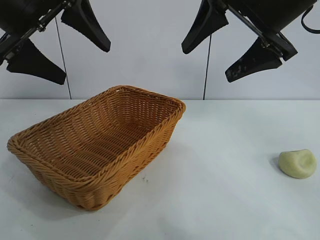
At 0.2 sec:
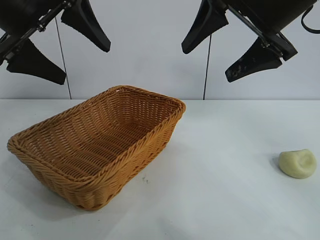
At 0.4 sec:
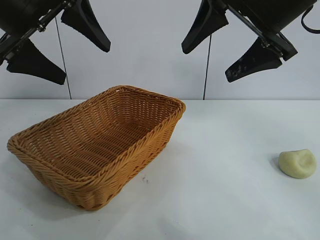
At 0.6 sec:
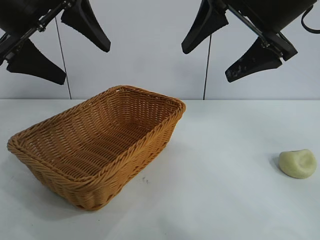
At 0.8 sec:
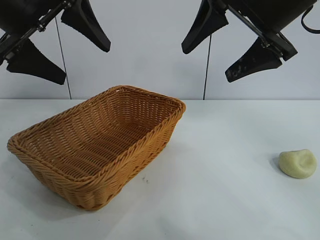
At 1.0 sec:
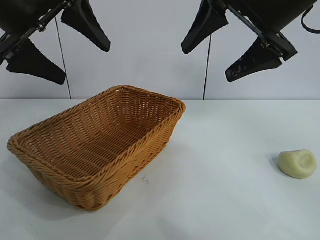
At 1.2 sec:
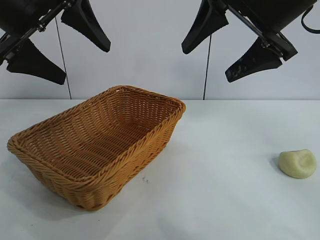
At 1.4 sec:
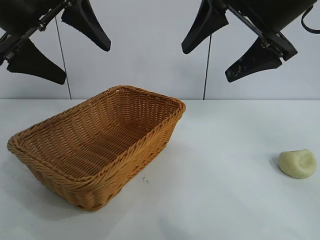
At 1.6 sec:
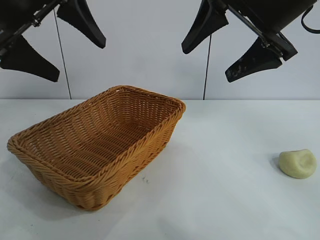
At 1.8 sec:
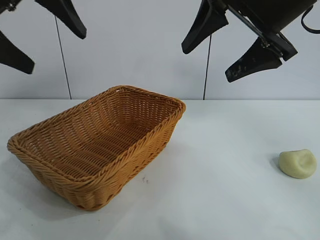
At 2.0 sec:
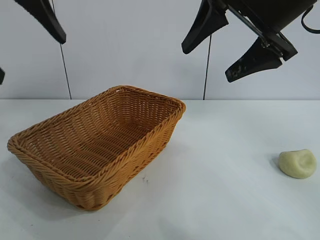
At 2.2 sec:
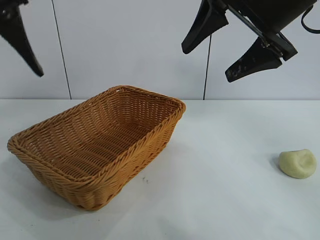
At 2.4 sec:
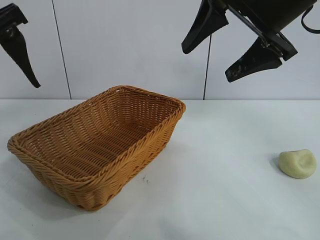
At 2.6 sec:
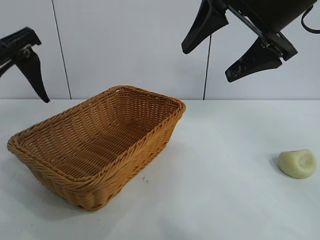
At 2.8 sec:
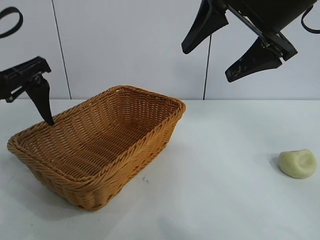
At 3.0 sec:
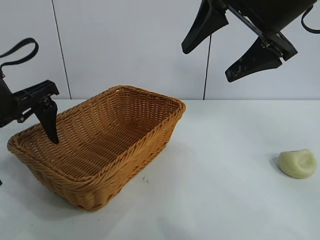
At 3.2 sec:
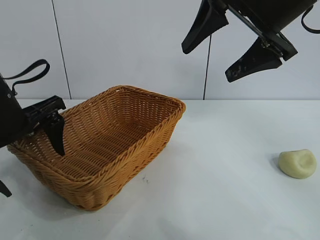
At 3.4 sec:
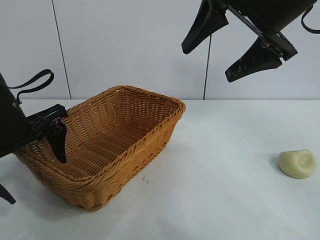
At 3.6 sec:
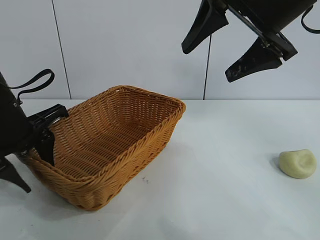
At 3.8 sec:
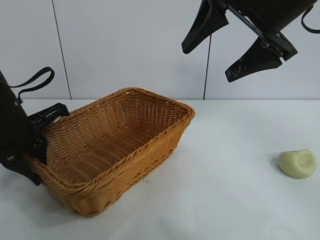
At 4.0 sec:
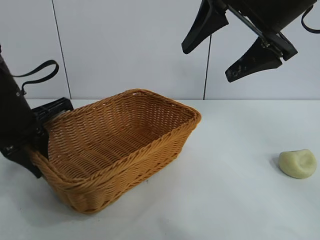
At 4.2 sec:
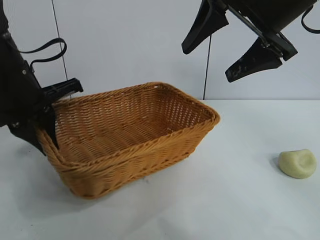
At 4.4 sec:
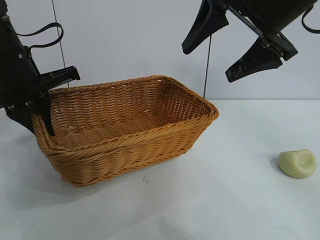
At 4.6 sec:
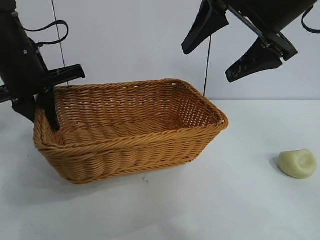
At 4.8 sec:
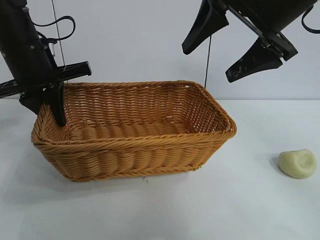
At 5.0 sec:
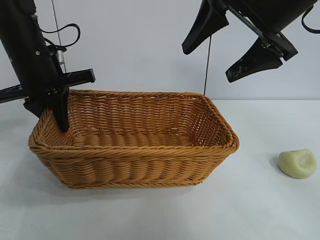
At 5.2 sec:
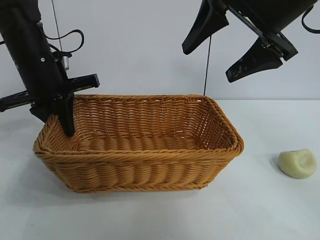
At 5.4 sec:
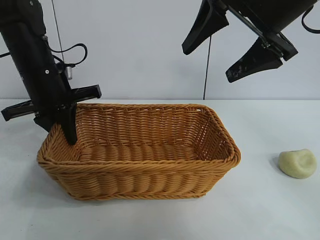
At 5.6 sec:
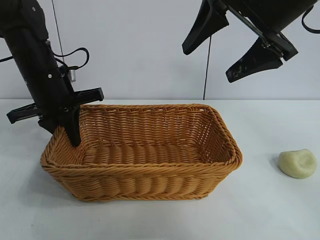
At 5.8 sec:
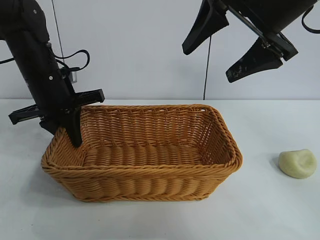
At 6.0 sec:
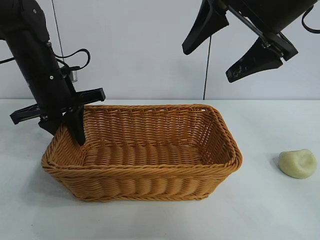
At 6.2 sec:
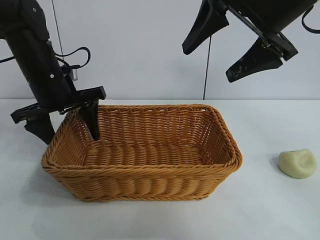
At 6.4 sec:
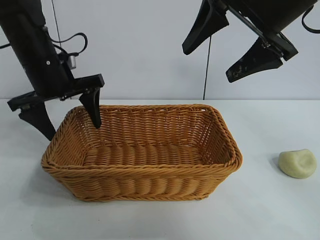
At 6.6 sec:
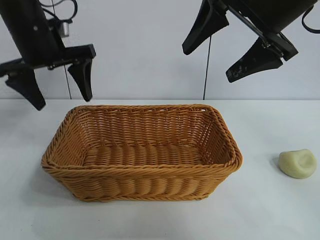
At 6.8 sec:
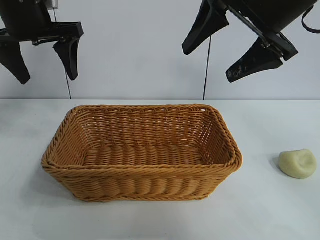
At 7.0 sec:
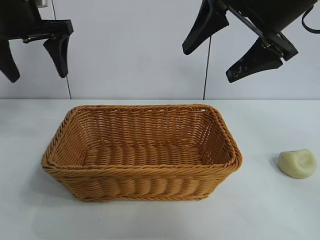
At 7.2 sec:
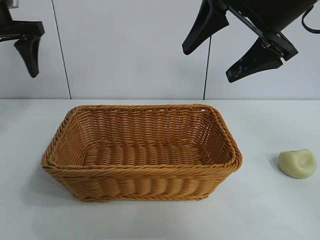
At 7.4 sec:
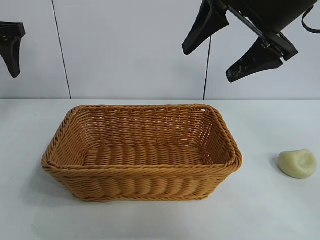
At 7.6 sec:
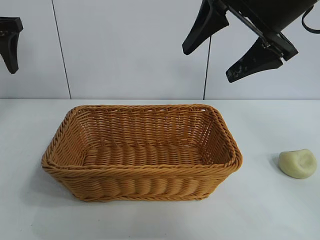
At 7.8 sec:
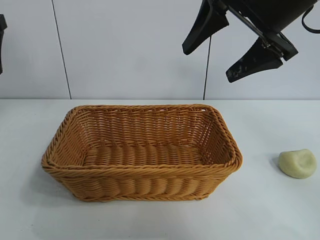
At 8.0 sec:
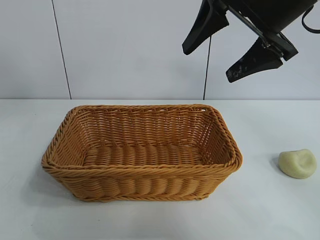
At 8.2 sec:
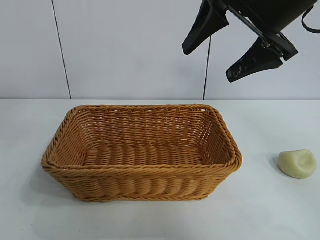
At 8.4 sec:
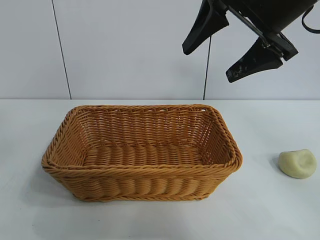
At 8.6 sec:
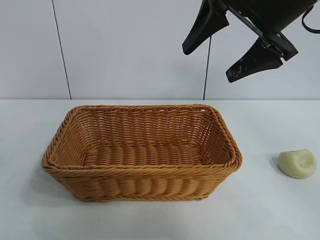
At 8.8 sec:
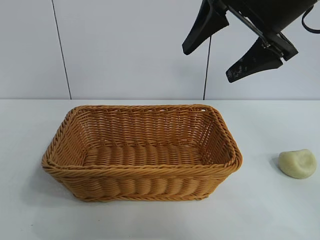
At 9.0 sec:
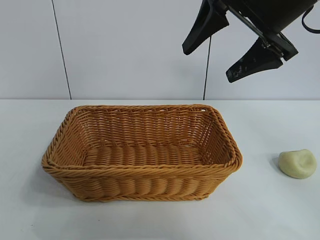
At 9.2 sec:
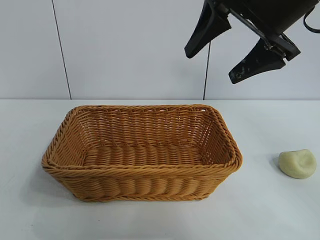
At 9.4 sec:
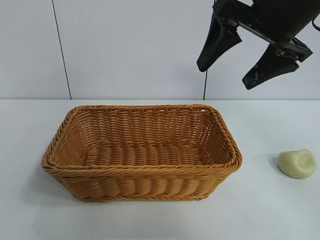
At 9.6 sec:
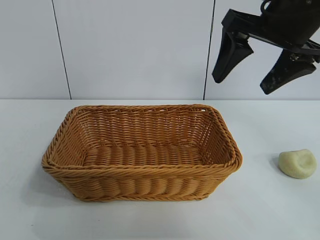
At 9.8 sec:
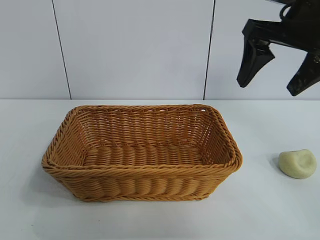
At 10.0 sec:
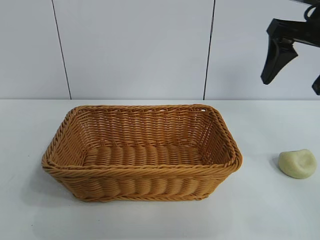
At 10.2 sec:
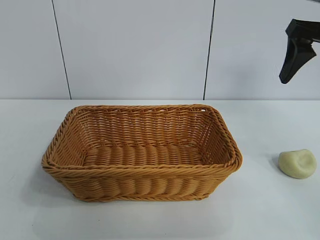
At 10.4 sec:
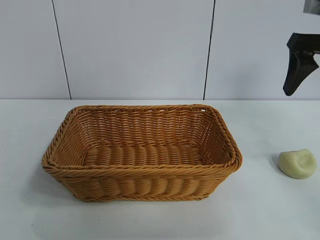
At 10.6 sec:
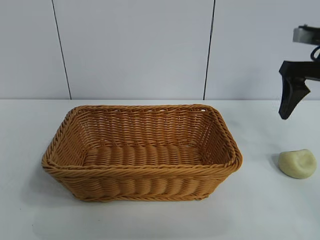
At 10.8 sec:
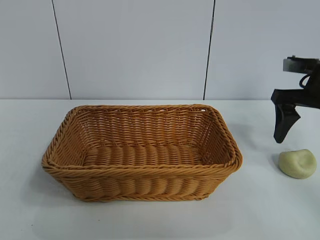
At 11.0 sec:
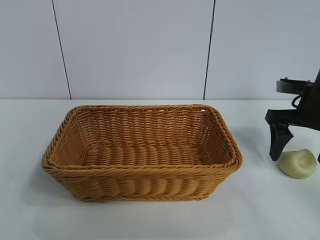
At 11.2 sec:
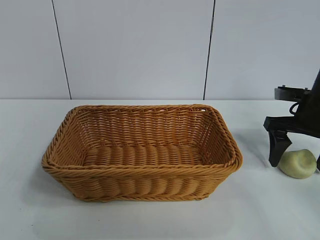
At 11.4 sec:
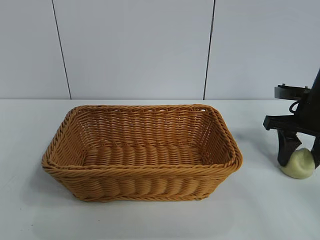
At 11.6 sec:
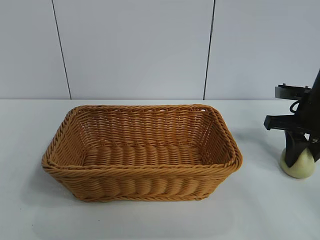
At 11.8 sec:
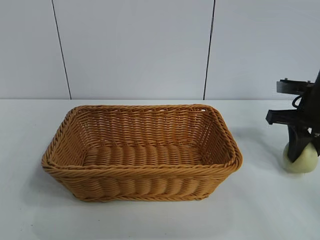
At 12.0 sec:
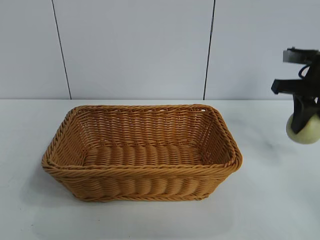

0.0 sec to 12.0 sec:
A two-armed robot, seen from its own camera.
Task of the whole recording: pick up the egg yolk pastry and put it into the basket.
Step, 1.4 sec to 3.6 sec: Grasp the basket with left gripper.
Step, 4.0 sec to 6.0 sec: Place the basket in the center of view with left gripper.
Step, 6.2 sec to 11.4 sec: Grasp egg yolk pastry with right gripper.

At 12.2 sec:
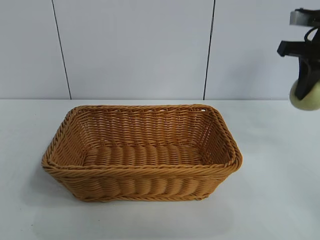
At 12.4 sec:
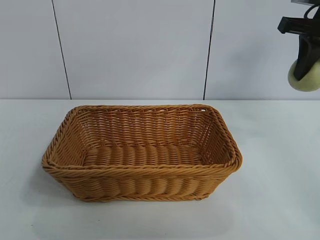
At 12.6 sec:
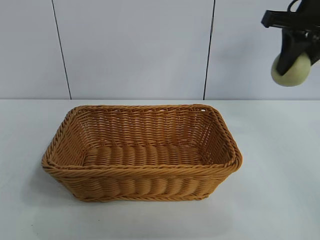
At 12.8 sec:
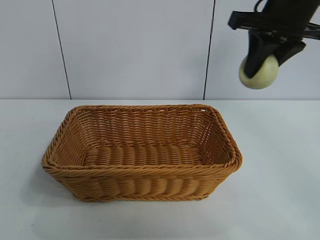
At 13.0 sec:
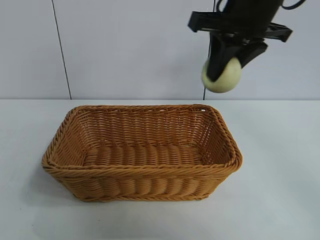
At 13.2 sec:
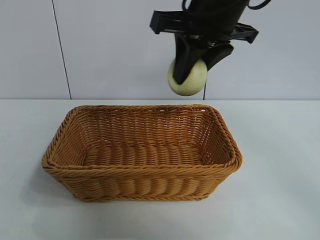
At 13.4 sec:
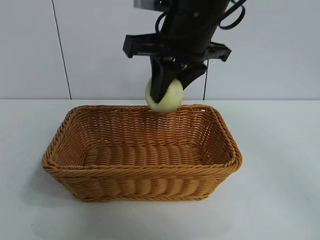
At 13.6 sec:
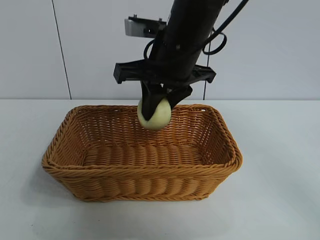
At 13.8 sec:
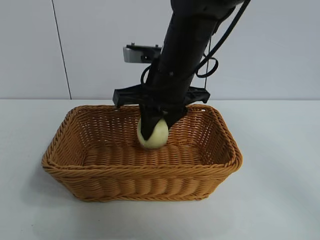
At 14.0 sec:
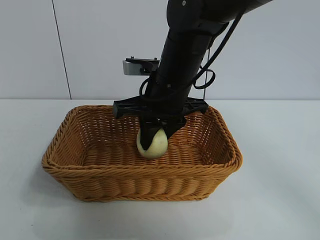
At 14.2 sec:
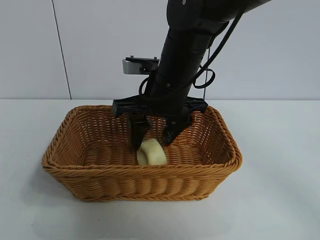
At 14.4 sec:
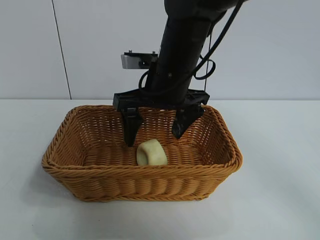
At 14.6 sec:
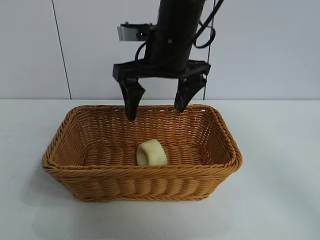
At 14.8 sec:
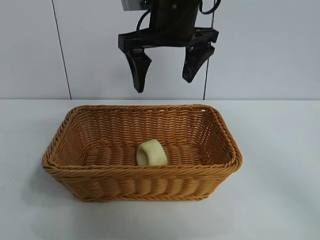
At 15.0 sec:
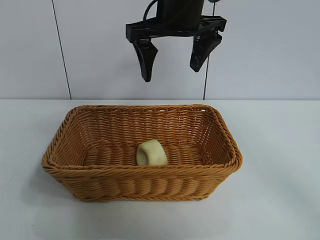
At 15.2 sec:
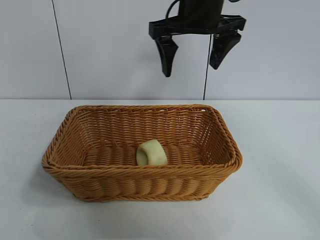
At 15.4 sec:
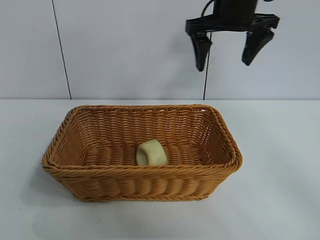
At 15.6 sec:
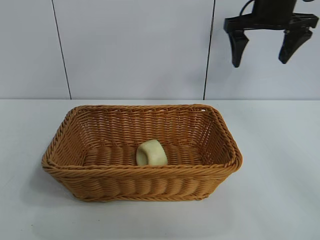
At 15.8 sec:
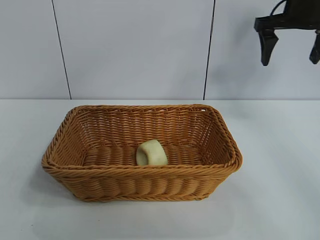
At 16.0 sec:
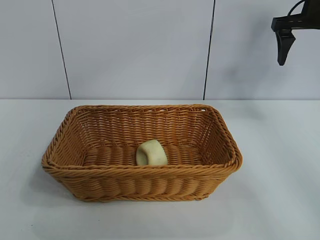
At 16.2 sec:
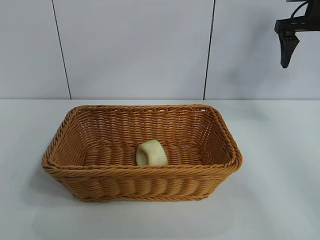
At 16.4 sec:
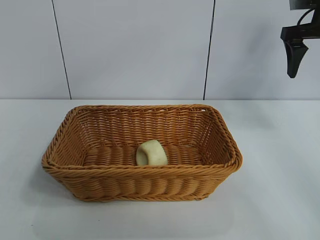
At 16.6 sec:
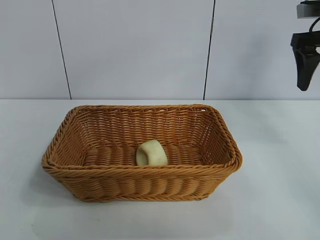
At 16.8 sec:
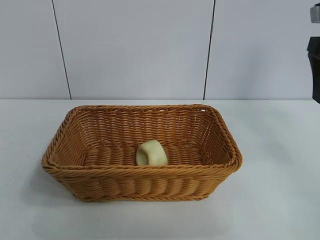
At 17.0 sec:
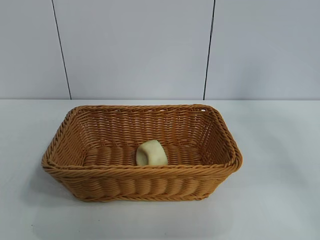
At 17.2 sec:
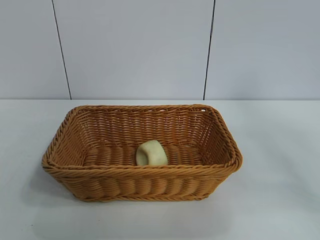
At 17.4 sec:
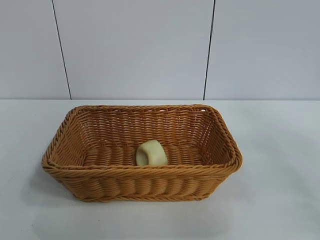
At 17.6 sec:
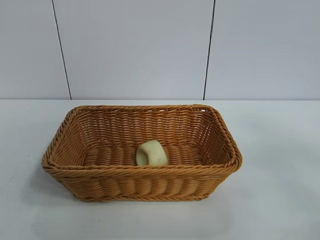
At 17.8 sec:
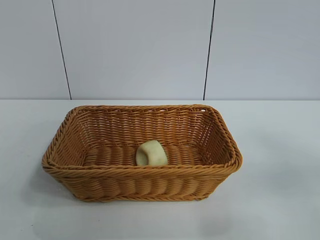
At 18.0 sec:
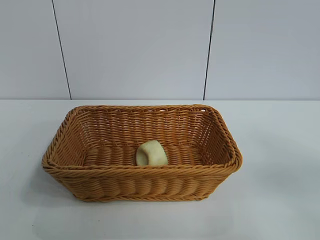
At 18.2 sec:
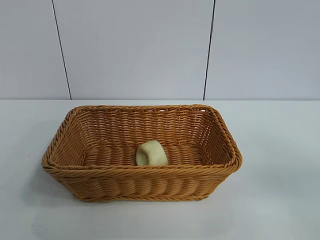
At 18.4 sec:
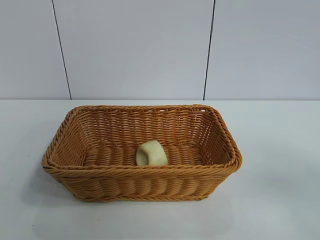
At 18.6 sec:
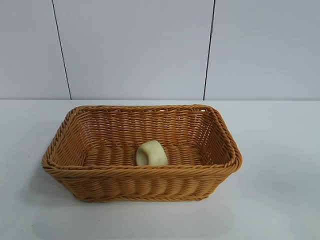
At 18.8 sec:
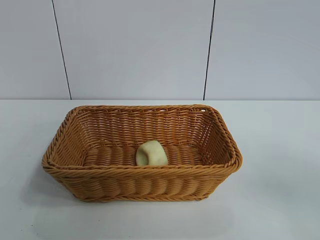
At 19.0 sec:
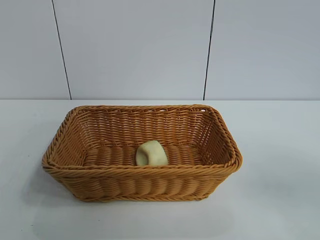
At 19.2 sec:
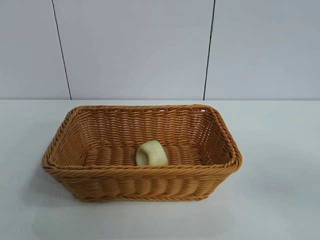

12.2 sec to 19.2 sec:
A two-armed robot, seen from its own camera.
Task of the whole recording: pick up the egg yolk pastry and put it into the basket.
Step, 12.2 sec to 14.2 sec: Place the egg yolk pastry in the basket with right gripper.
